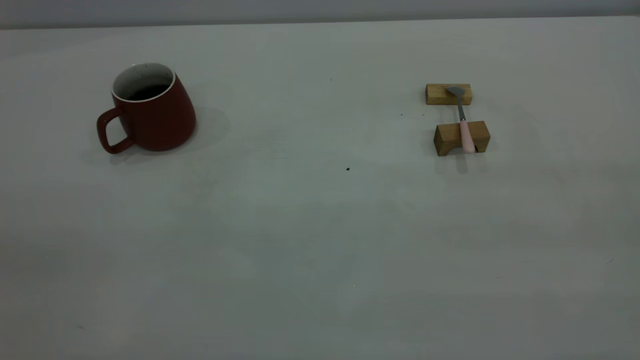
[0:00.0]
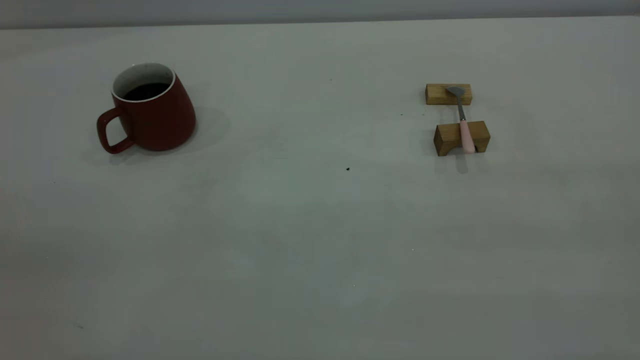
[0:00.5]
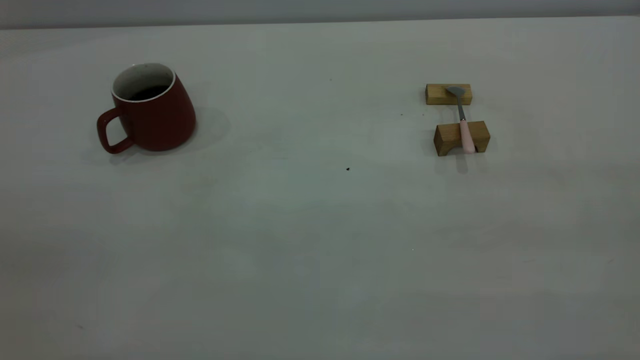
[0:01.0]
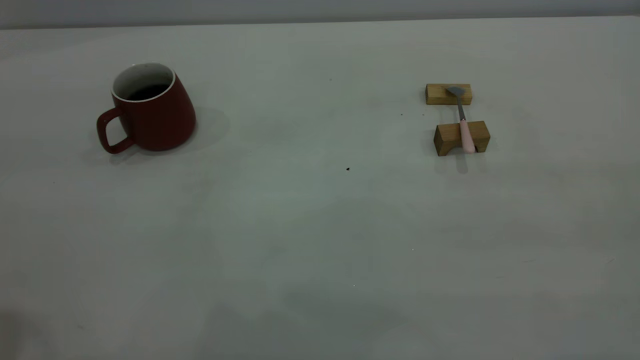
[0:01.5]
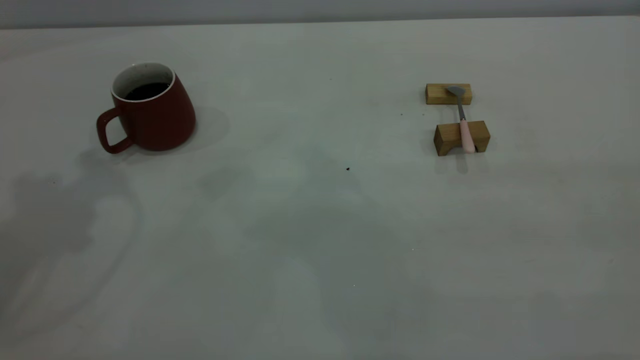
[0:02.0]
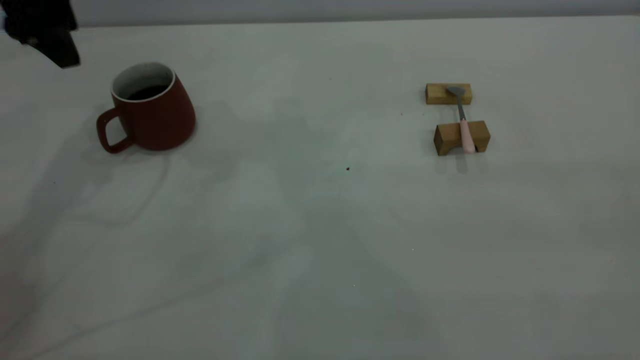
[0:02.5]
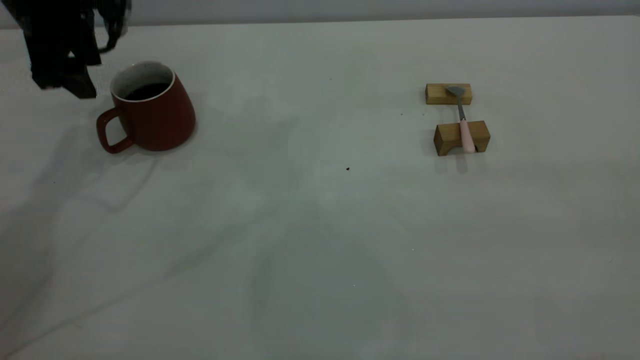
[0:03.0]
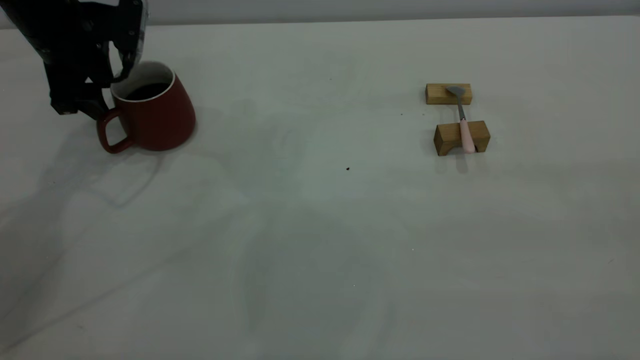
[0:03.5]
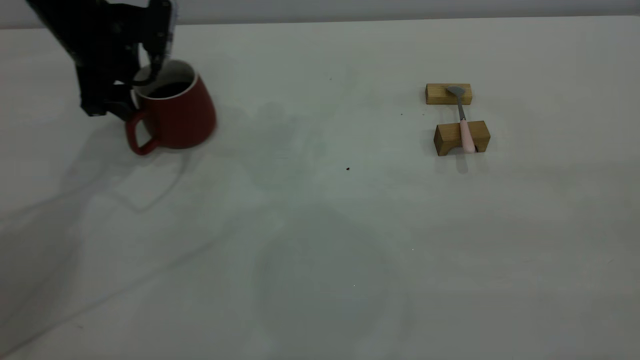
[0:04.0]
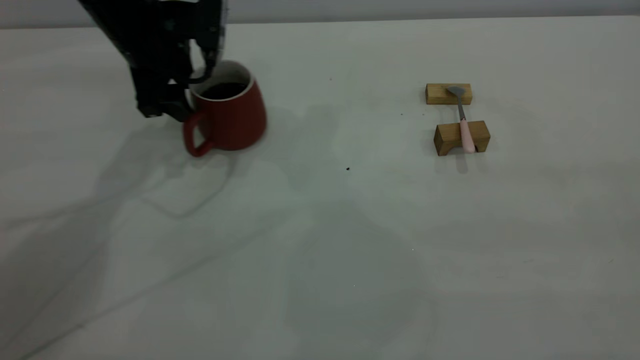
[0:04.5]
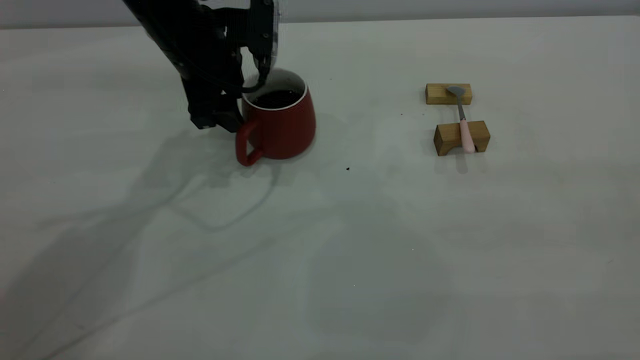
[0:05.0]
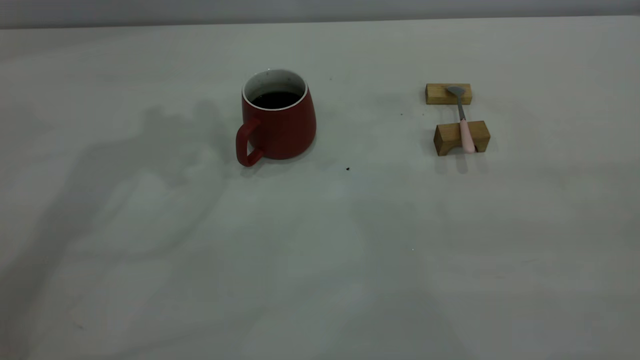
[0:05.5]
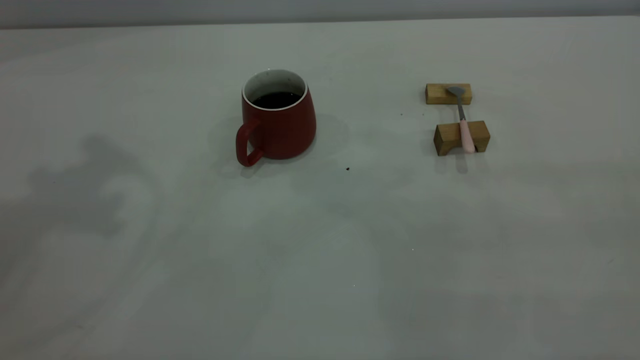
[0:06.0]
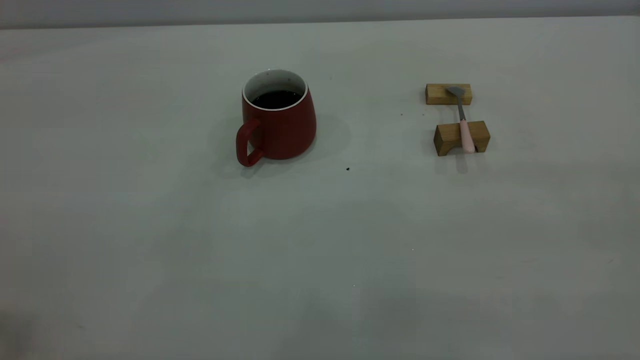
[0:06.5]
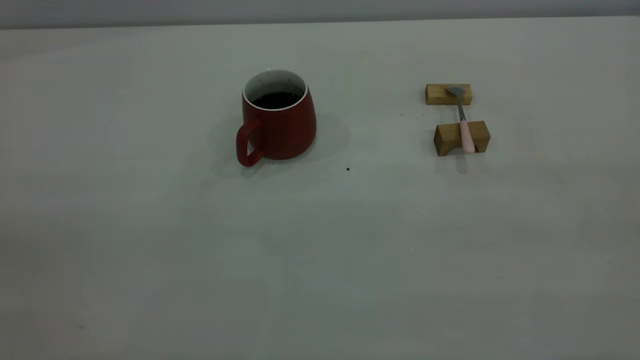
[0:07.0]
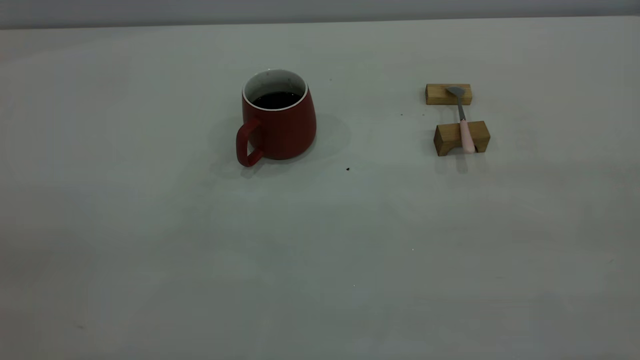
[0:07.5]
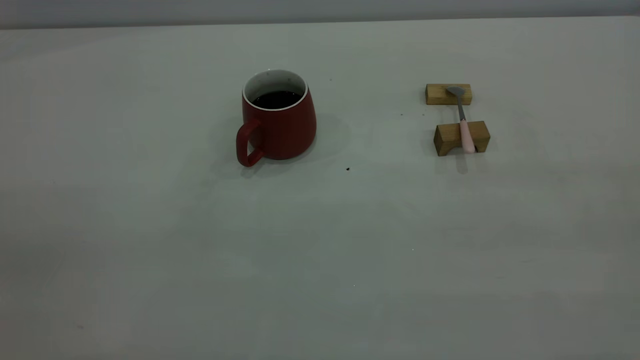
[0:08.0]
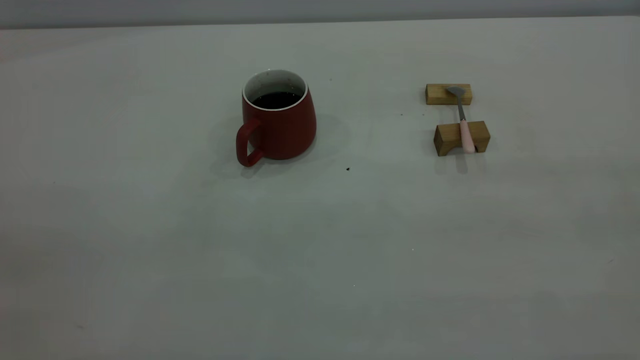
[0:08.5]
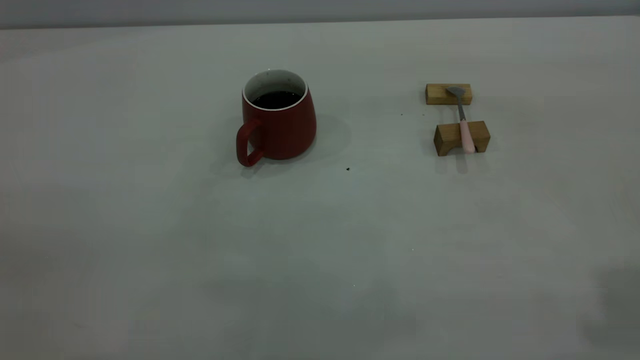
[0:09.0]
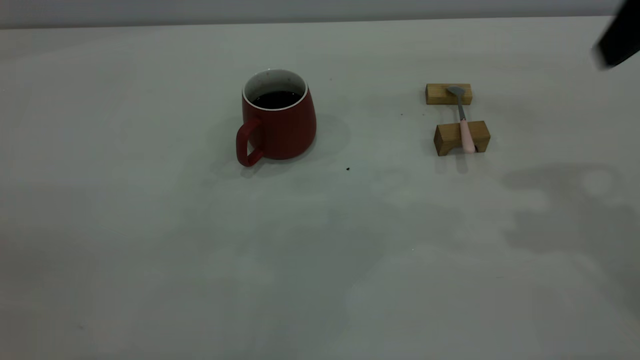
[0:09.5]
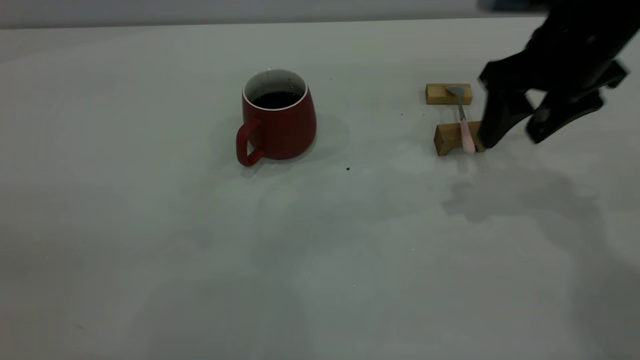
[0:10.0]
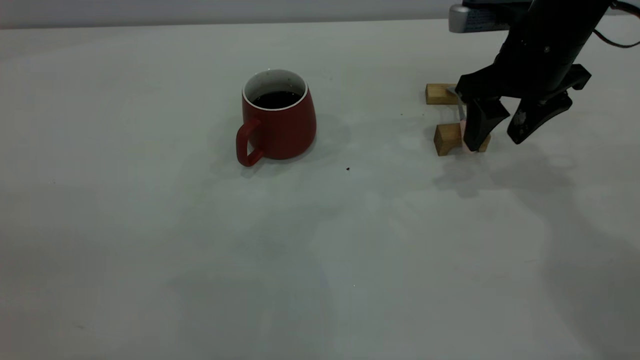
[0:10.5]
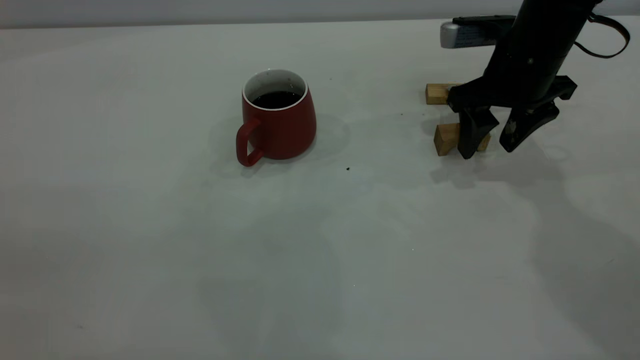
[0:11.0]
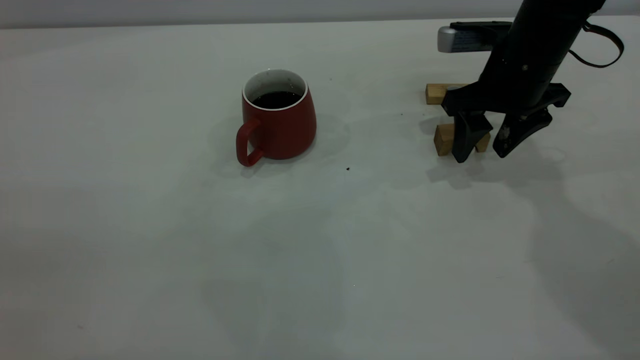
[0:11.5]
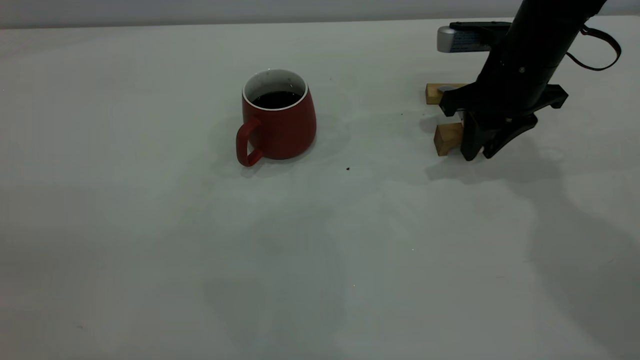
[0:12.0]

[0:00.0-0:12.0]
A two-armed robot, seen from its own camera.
Step, 0:00.0 to 0:05.0: Move the cup with coffee to the center of view.
0:02.0 to 0:04.0: The left gripper is displaced downward and forward by about 25 cm.
0:04.0 to 0:06.0: The left gripper is displaced upward and backward by approximately 35 cm.
0:08.0 to 0:10.0: The right gripper goes approximately 40 cm forward and downward, and opens.
0:10.0 to 0:12.0: The right gripper moves downward and forward, about 10 cm, and closes its fingers.

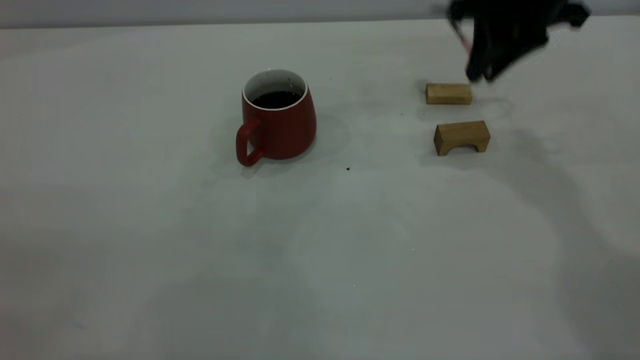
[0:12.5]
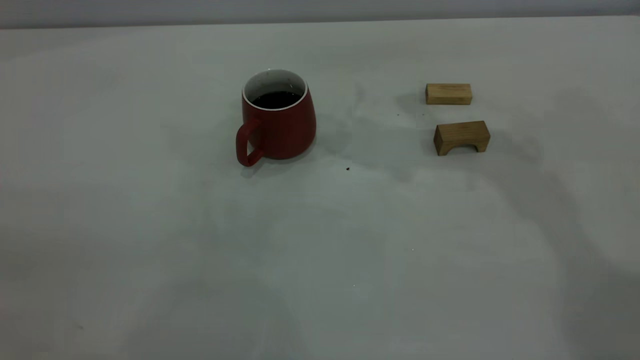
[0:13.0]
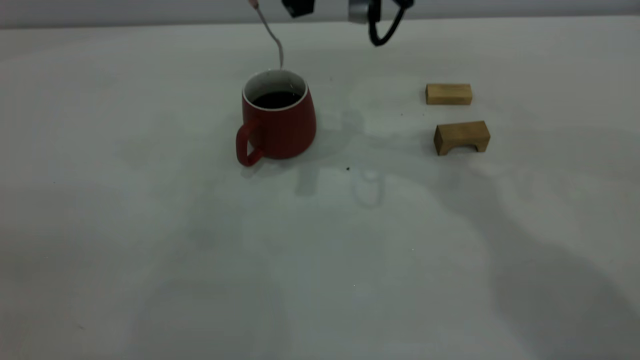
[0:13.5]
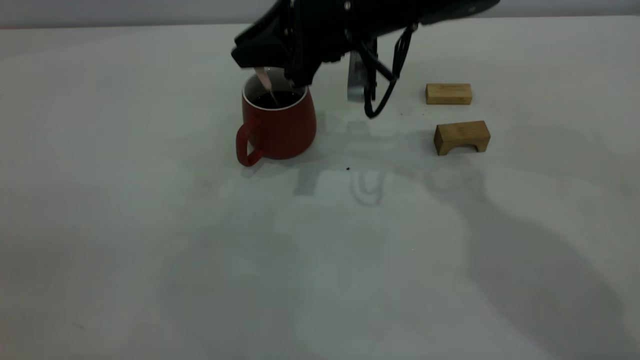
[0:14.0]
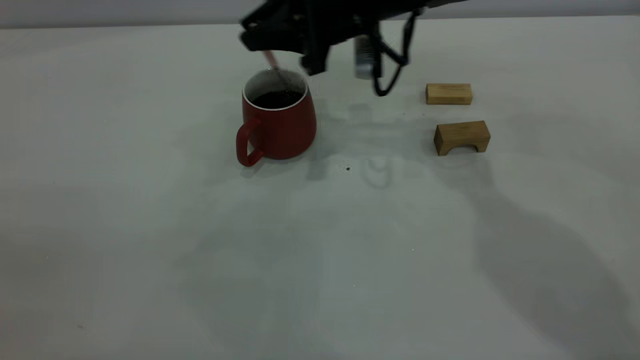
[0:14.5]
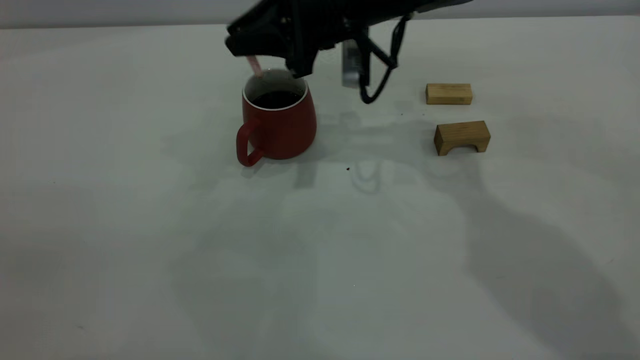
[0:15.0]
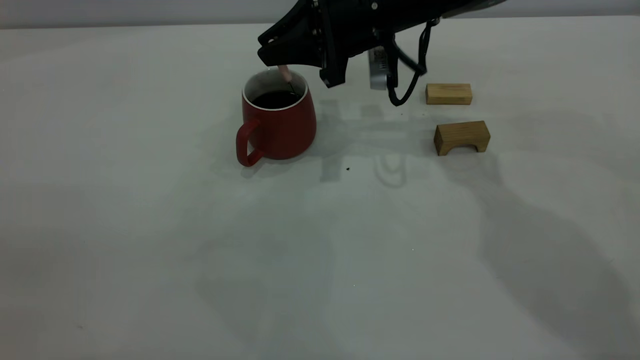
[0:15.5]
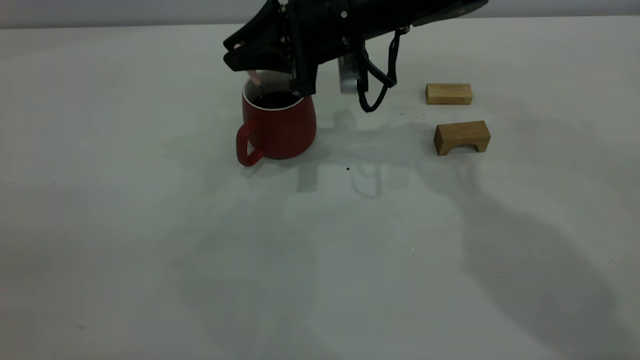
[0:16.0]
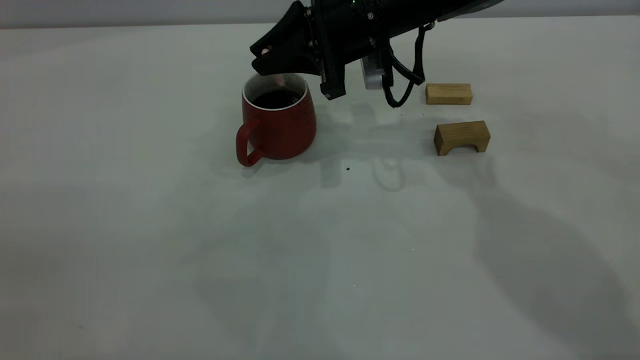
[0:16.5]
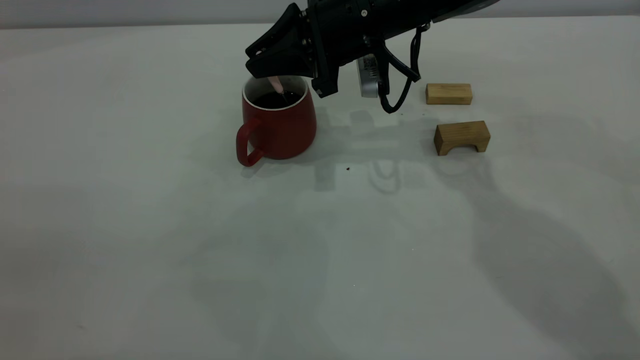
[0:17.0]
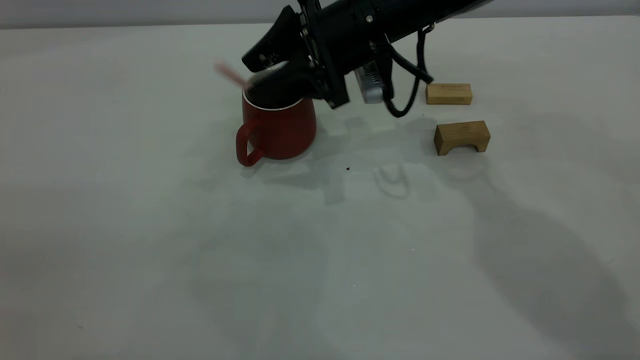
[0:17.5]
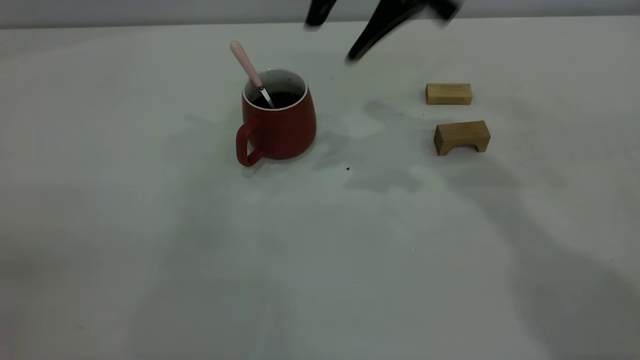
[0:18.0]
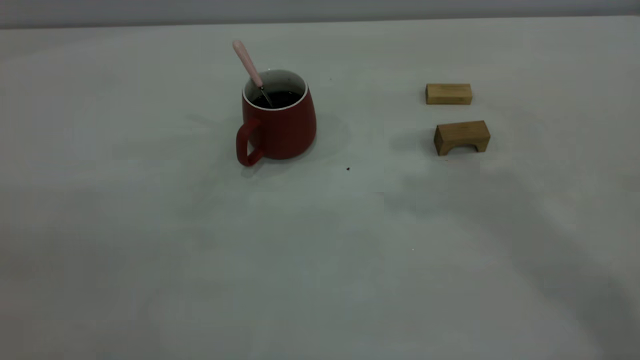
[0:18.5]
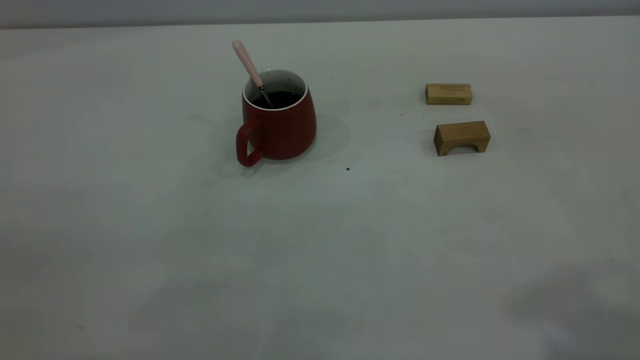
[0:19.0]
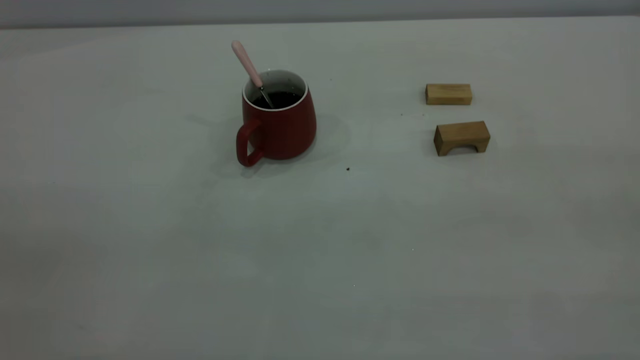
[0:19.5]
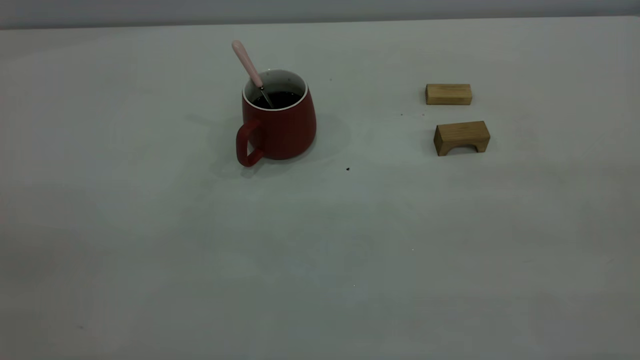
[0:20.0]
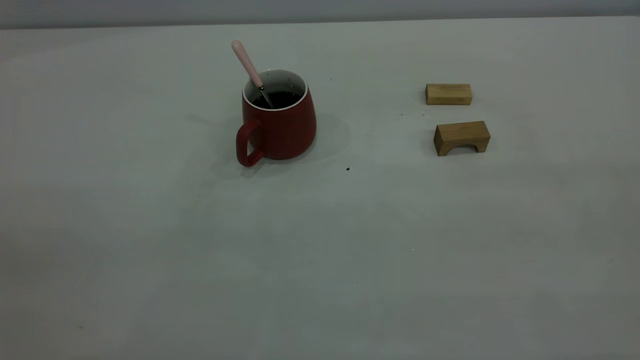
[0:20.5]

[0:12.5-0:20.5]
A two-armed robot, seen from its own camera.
Step, 0:12.5 to 0:17.0: Stir the coffee in the cup.
0:12.5 to 0:14.5: The right gripper travels to the left and downward by roughly 15 cm.
0:16.5 to 0:18.5: The right gripper travels upward and backward by roughly 30 cm, and opens.
